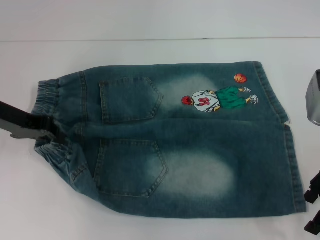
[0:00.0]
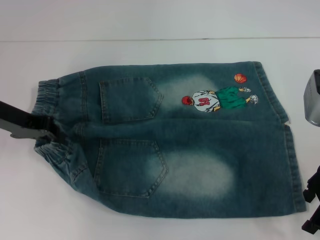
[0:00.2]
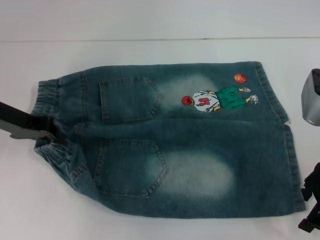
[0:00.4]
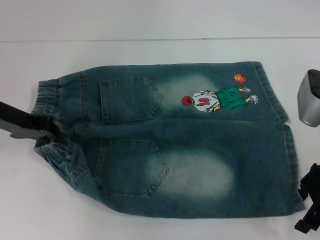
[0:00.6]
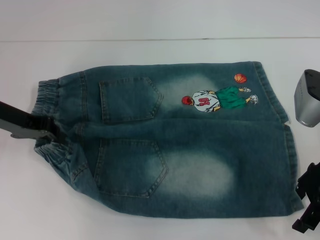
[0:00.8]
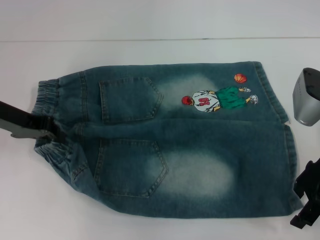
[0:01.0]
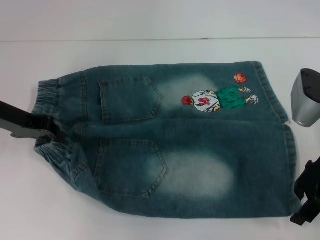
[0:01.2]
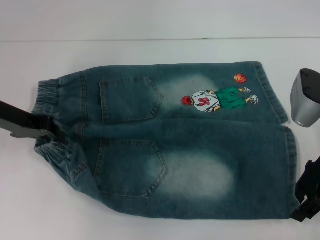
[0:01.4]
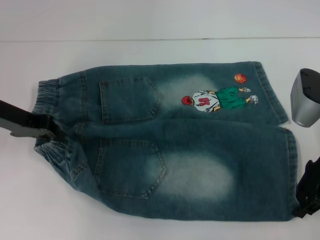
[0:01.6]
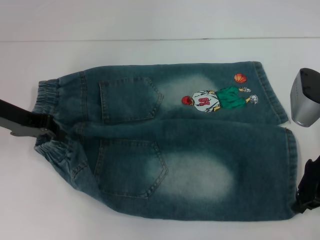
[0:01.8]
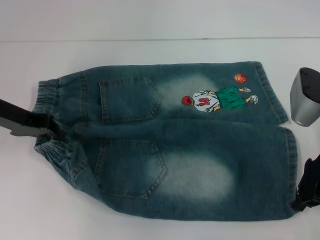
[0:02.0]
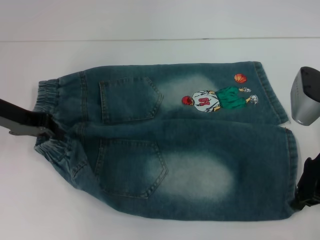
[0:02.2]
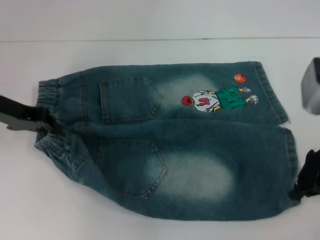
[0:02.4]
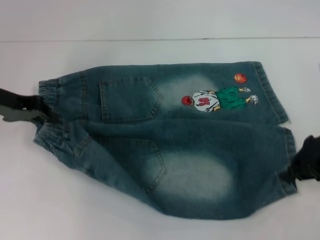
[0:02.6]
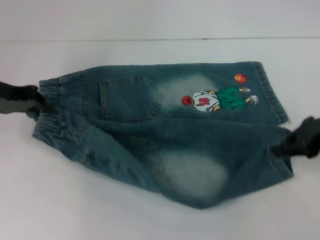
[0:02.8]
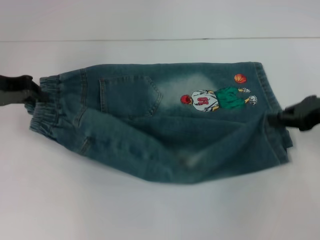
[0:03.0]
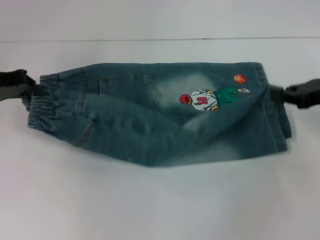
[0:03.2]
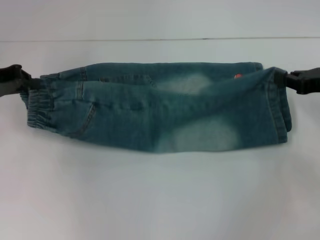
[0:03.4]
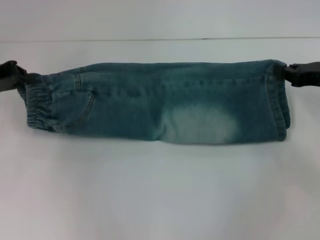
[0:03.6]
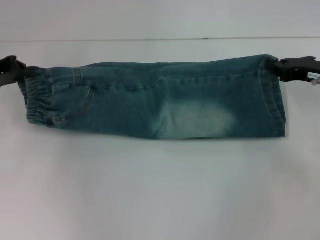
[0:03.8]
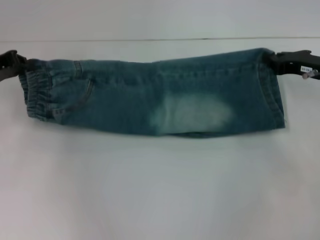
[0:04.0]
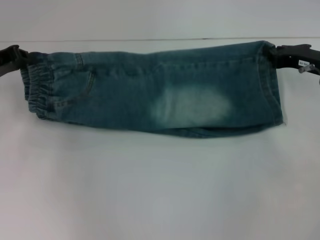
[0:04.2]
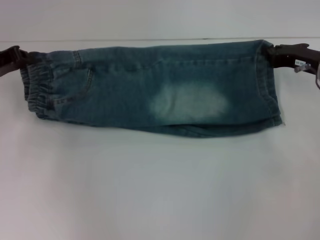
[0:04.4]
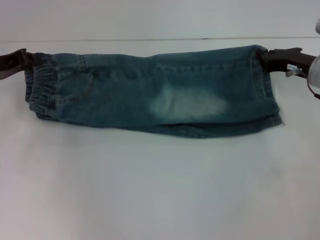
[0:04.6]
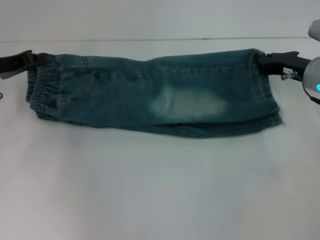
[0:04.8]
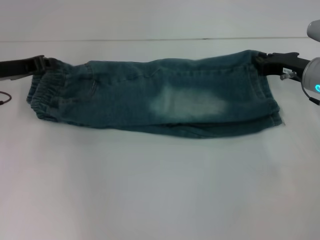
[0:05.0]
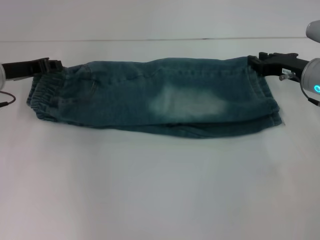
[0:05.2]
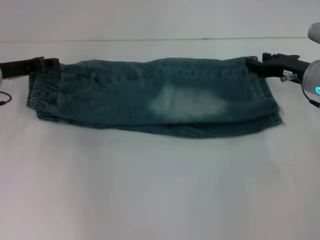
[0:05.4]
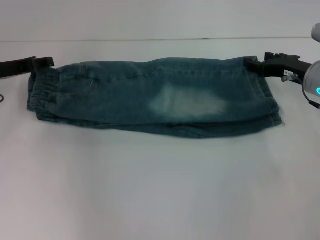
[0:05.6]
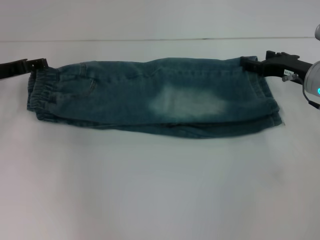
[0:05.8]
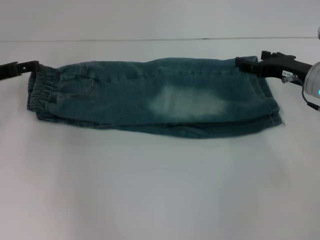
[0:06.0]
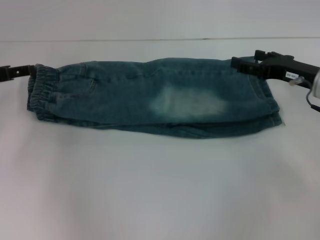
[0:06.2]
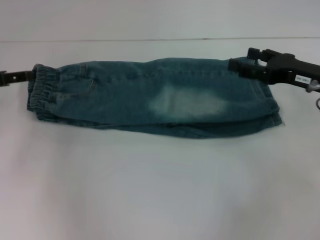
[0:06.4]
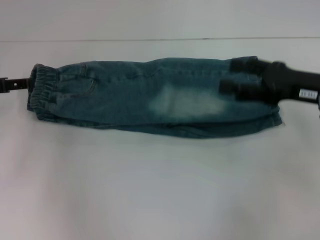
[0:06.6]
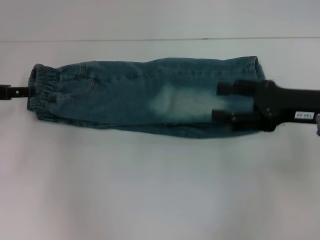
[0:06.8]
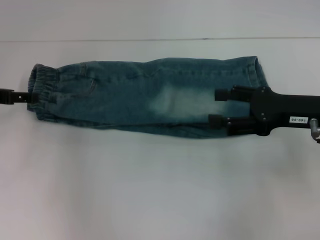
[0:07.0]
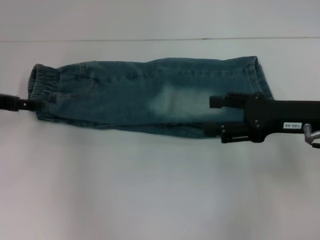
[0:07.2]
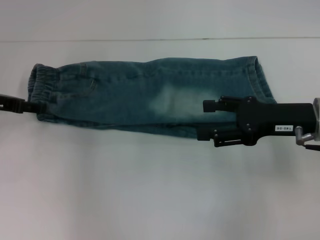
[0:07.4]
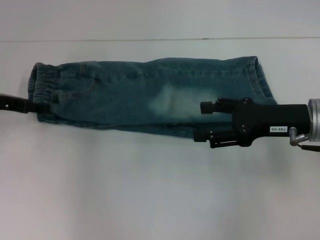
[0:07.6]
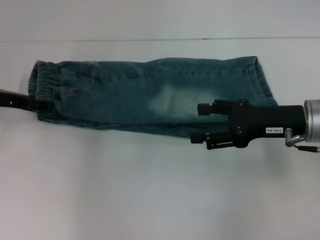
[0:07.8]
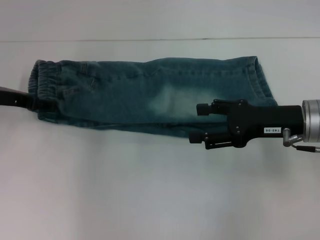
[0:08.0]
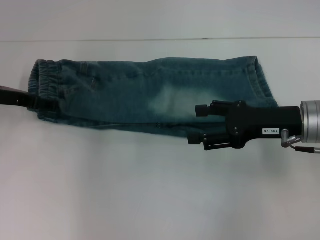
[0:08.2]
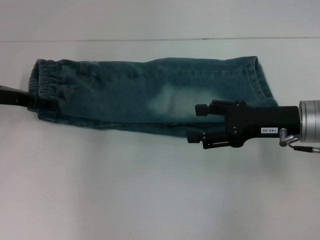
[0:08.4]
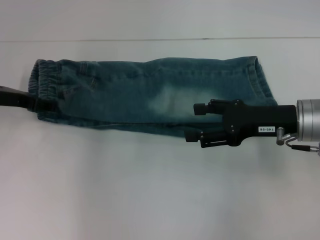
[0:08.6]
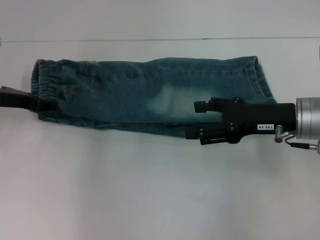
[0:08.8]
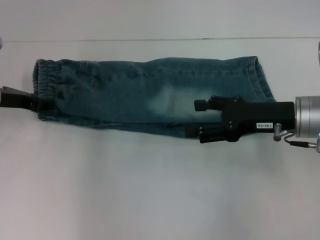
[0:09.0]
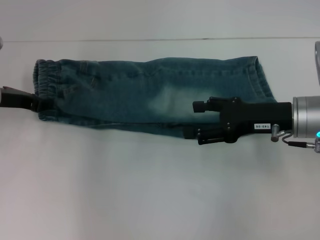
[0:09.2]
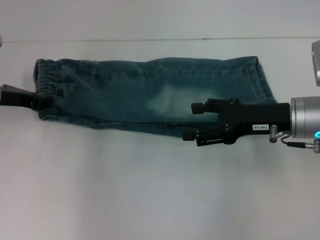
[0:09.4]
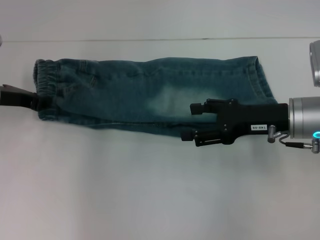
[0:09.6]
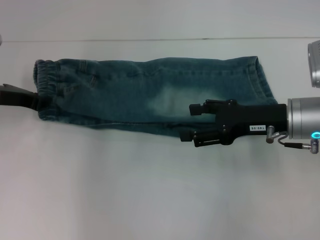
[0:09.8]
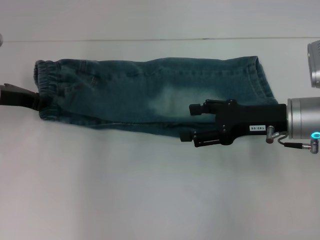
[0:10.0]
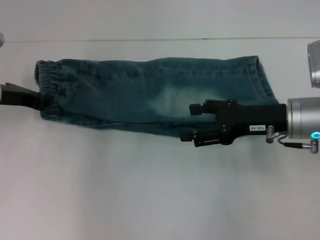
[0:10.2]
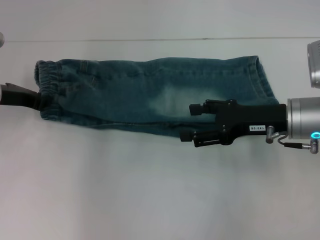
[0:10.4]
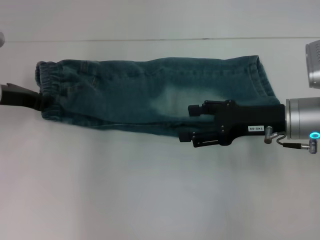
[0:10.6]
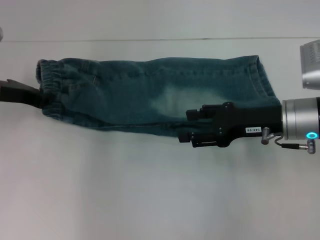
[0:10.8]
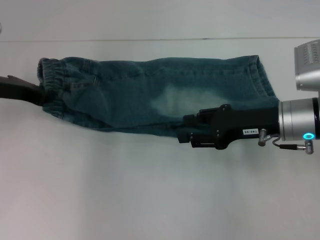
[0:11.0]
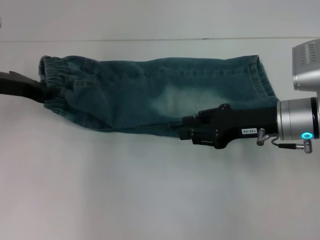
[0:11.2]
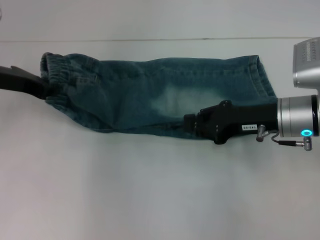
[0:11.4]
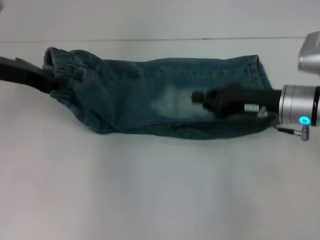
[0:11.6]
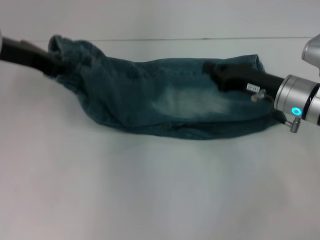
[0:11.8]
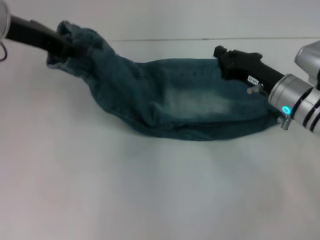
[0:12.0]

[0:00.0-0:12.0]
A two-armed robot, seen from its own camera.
Step, 0:00.0 to 0:02.2: Grab the lower right pant leg with your right hand.
Step, 0:02.4 to 0:05.0: Fold upward with your right hand.
Step, 0:05.2 to 0:05.6: Fold upward with your left hand.
Step, 0:05.8 to 0:10.2: Hold the waistband with your left hand.
0:00.0 to 0:01.6: The right gripper closes up.
0:01.6 to 0:03.0: The right gripper travels to the right by roughly 5 cm, and closes up.
0:03.0 to 0:04.4: The right gripper shifts about 5 cm forward.
0:04.4 to 0:06.0: The left gripper opens; the right gripper opens.
0:06.0 to 0:07.6: The right gripper moves backward, approximately 10 cm.
0:07.6 to 0:09.0: The grippers make only small movements.
0:09.0 to 0:10.4: The left gripper closes.
0:10.4 to 0:12.0: The right gripper shifts by about 5 cm, and closes up; the left gripper travels upward and to the right by some 15 cm.

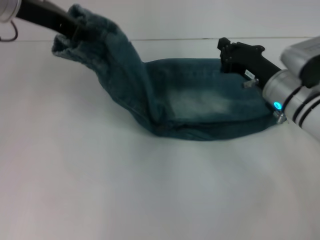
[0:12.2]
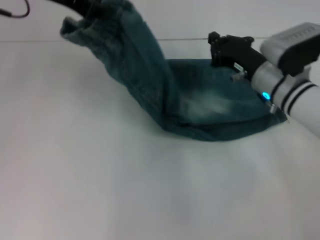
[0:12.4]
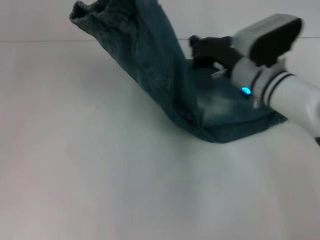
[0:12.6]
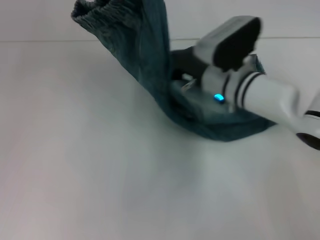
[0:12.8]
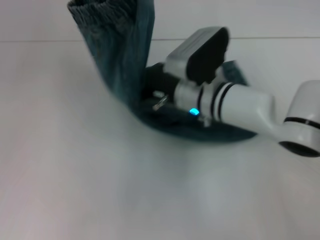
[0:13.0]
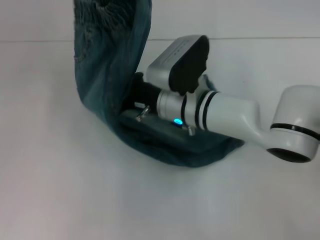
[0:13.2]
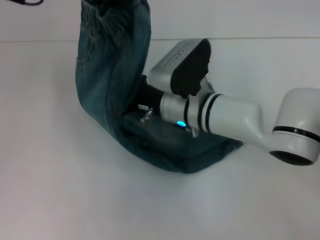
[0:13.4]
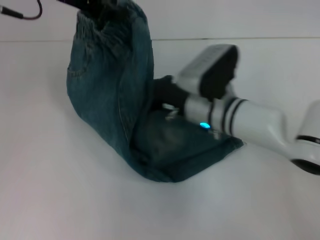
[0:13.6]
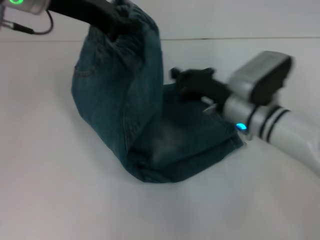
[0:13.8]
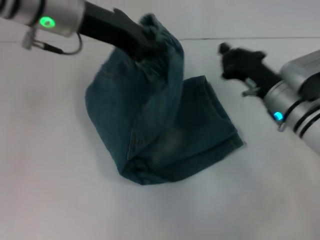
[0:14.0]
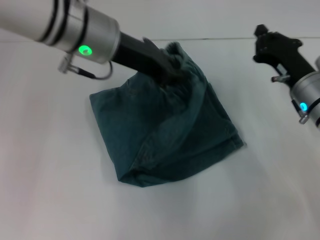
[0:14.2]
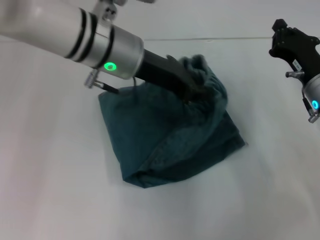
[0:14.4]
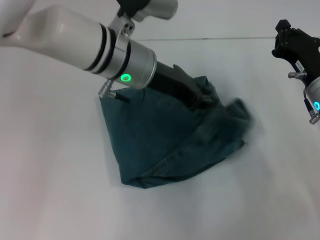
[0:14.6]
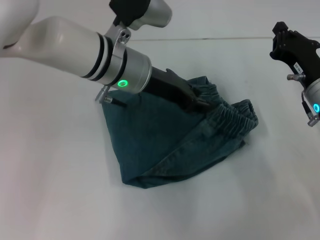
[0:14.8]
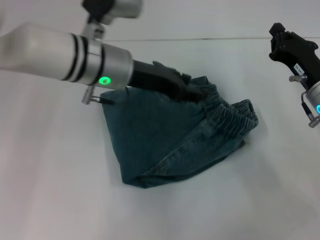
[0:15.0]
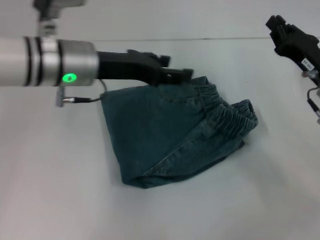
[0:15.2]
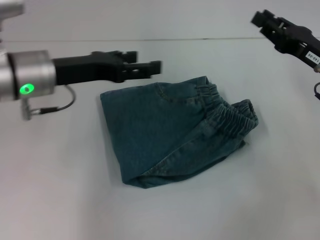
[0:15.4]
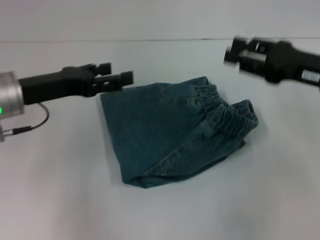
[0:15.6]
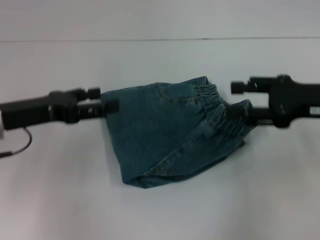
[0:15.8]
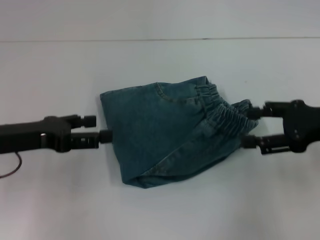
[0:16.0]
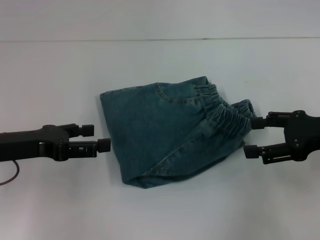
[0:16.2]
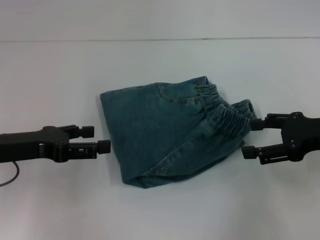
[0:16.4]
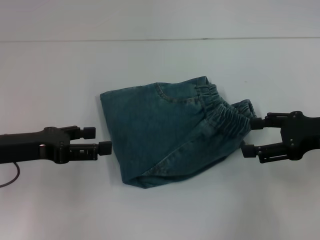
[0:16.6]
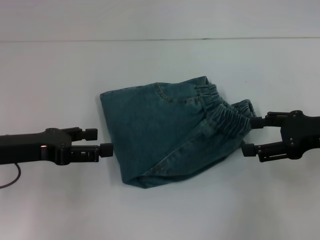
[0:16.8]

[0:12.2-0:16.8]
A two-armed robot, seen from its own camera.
Step, 0:13.4 to 0:14.6: Fold to the right with your left hand.
0:12.2 to 0:13.8: The right gripper moves to the left, approximately 5 cm.
0:13.8 to 0:15.2: The left gripper moves downward, roughly 10 cm, and opens, while the right gripper is displaced to the right by about 10 cm.
0:15.2 to 0:16.8: The right gripper heads upward, covering some 5 cm, and opens, while the left gripper shifts some 15 cm to the left, backward and downward, and opens up.
